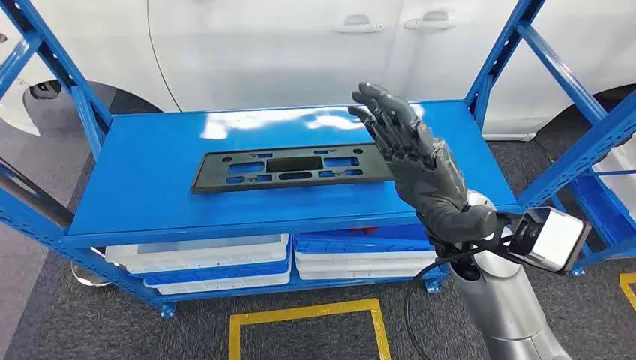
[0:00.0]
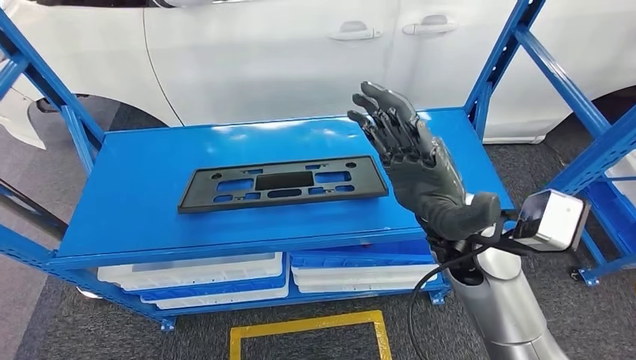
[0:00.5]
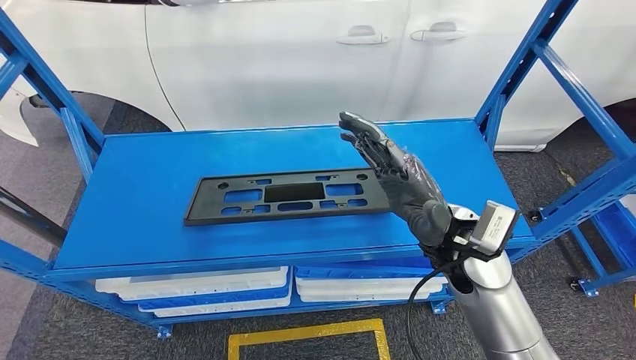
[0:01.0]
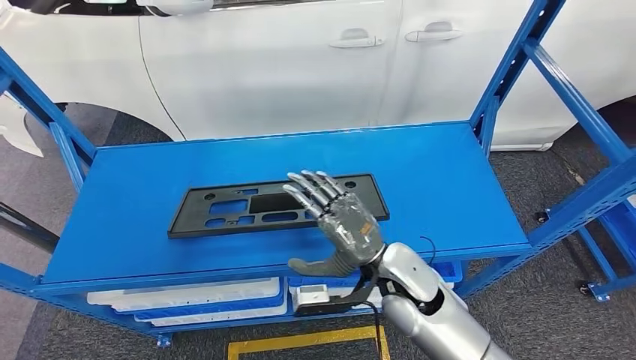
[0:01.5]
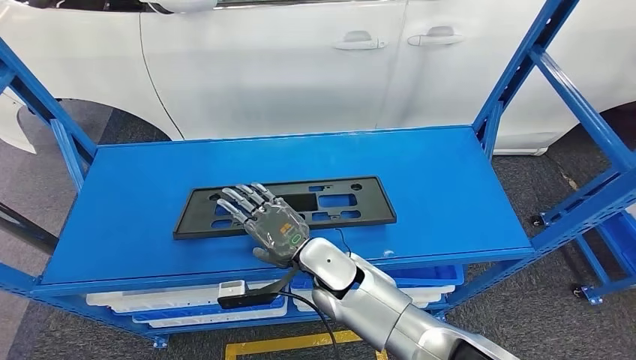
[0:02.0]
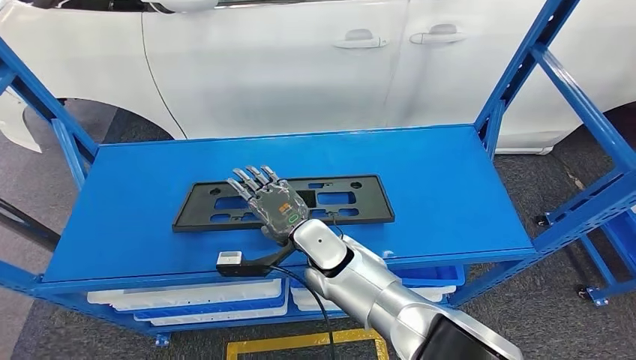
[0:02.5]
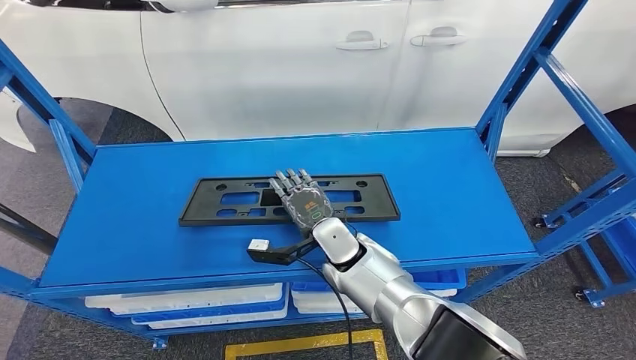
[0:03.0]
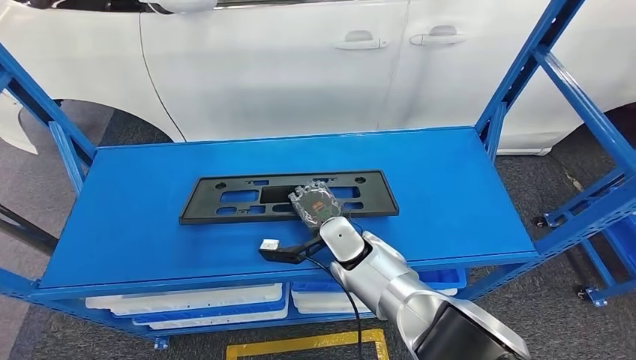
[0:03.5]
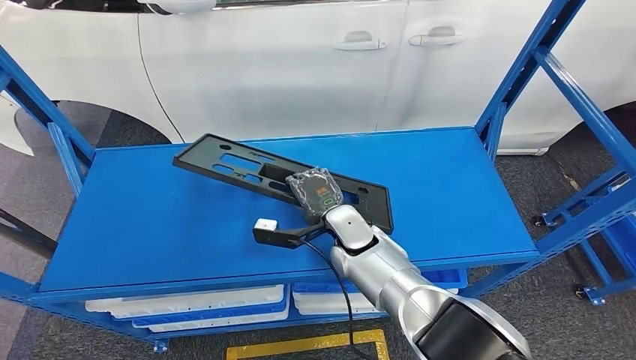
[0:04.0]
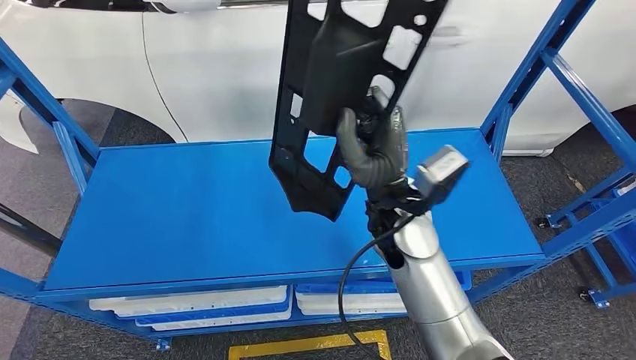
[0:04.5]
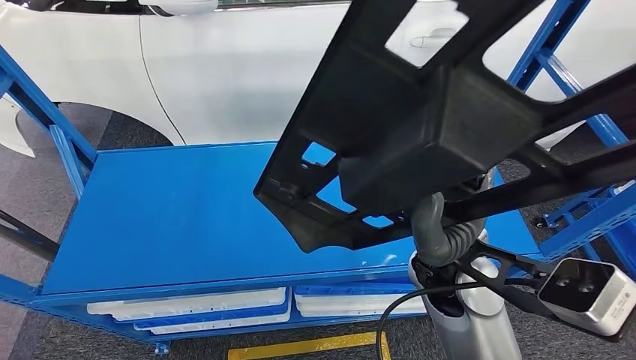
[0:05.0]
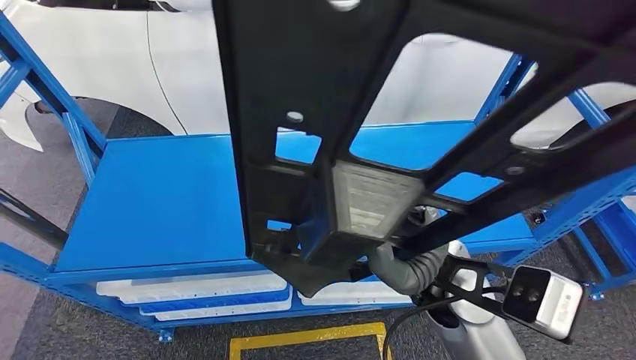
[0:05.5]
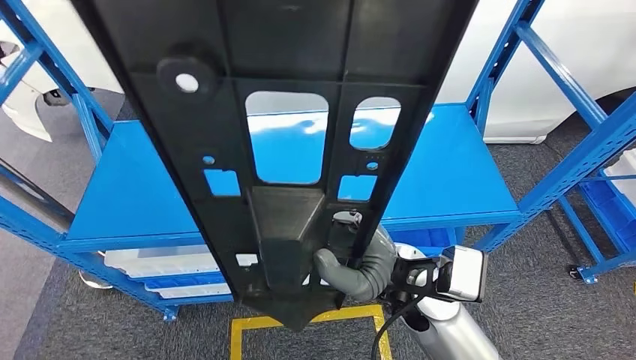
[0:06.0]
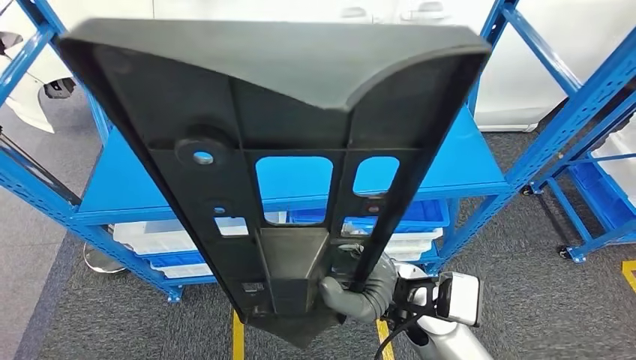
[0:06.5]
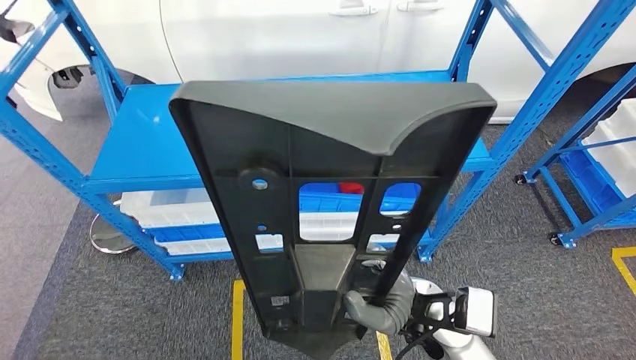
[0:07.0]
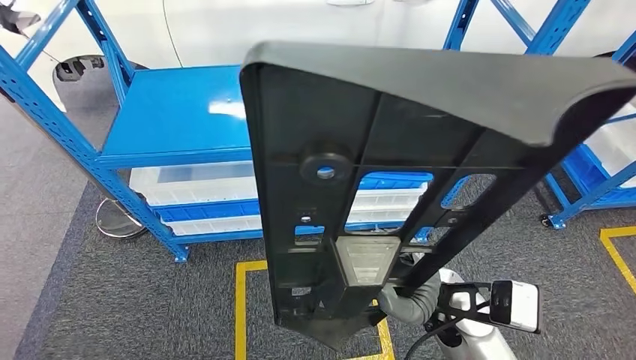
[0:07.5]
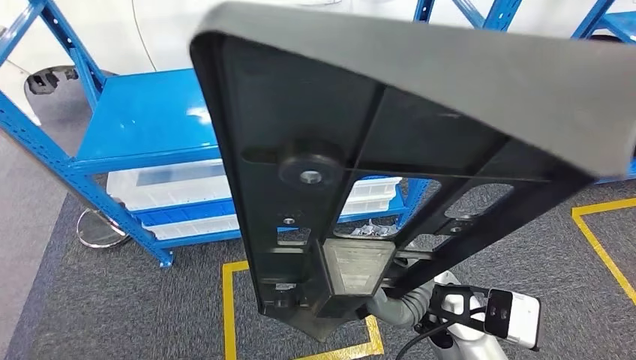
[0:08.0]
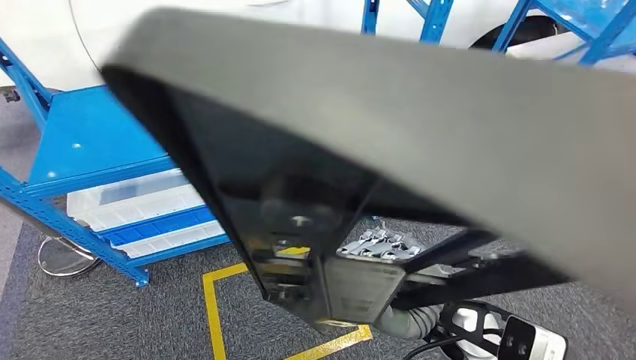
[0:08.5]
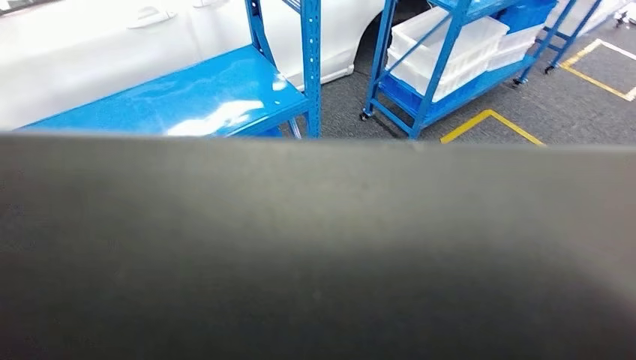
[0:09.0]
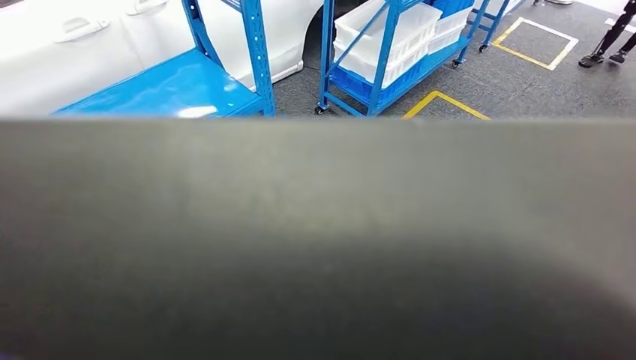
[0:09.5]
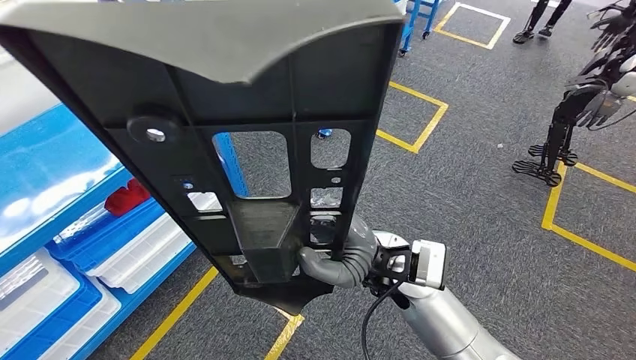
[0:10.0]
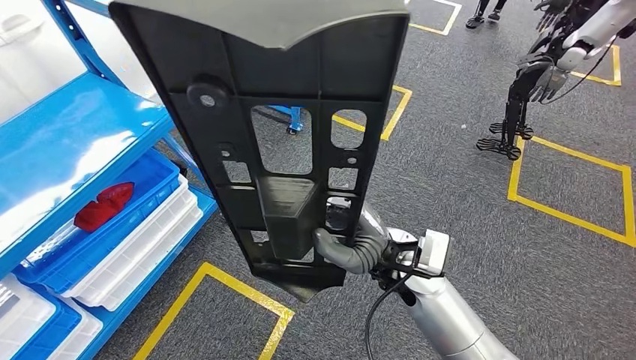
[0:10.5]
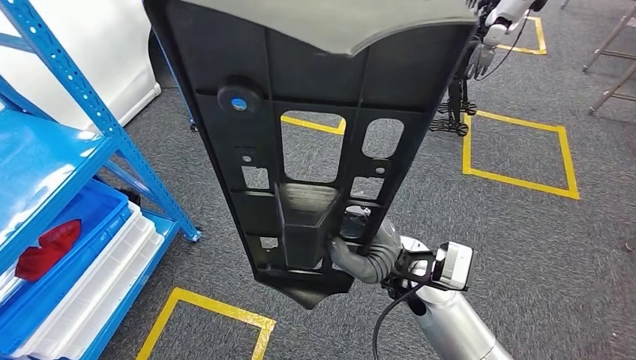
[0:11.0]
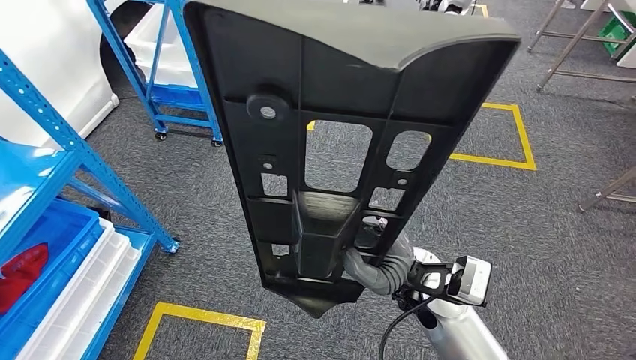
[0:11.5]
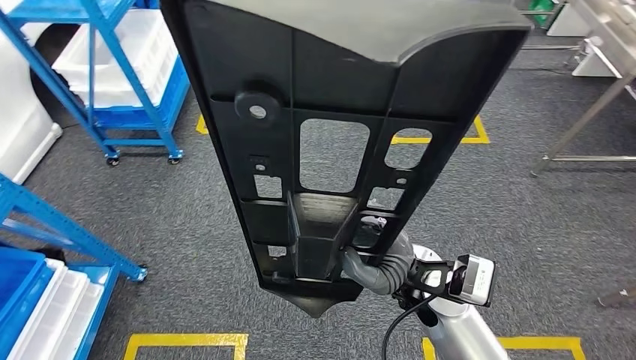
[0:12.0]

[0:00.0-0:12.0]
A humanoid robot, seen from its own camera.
Step, 0:00.0 to 0:05.5: Pick up the small component from the shelf.

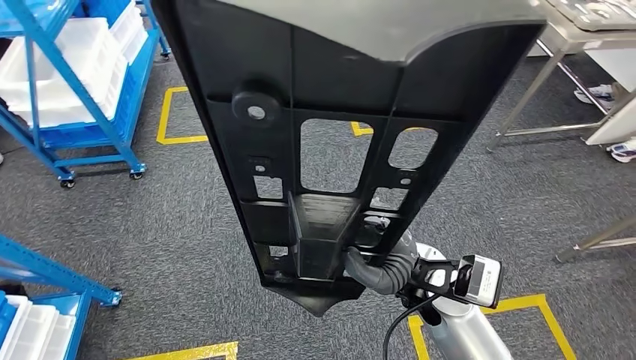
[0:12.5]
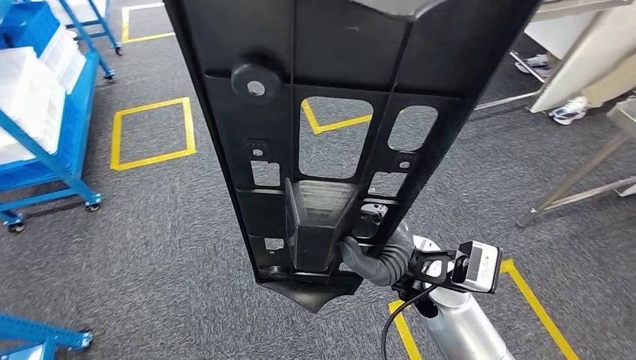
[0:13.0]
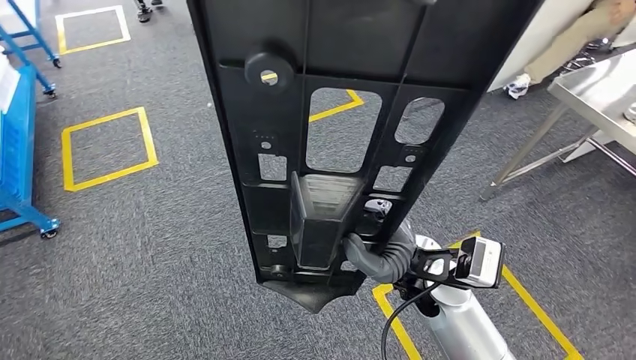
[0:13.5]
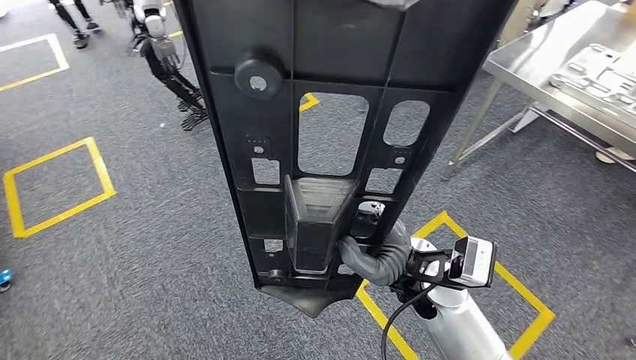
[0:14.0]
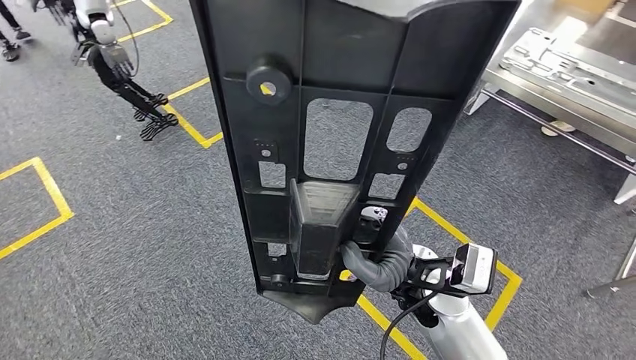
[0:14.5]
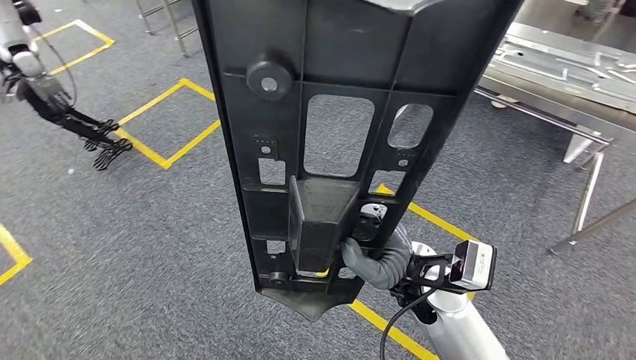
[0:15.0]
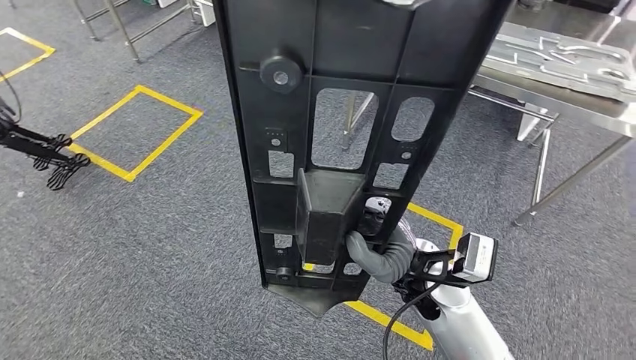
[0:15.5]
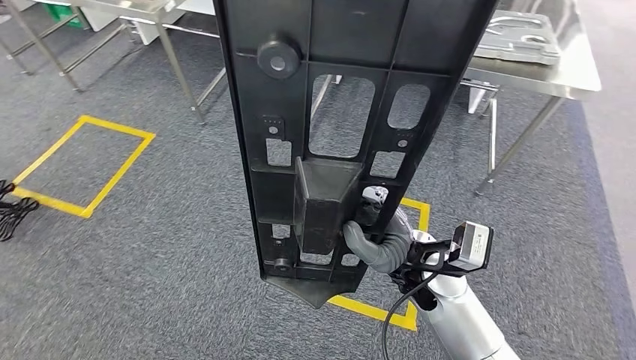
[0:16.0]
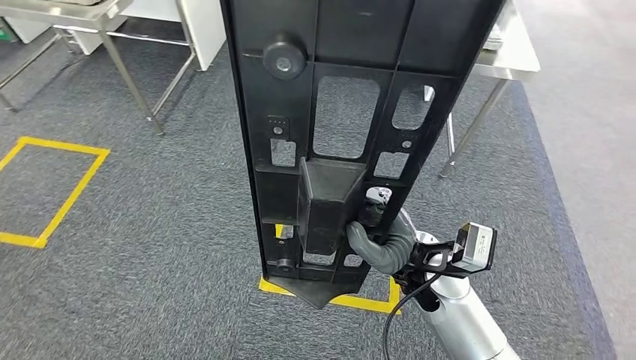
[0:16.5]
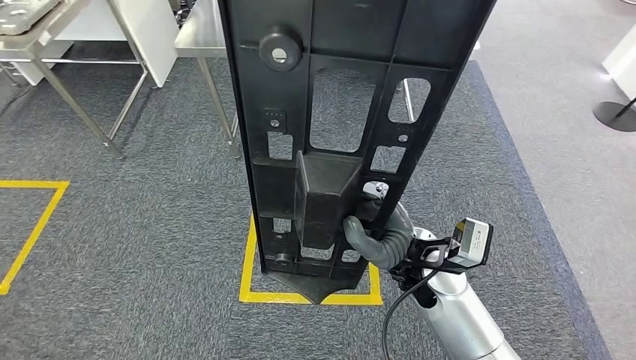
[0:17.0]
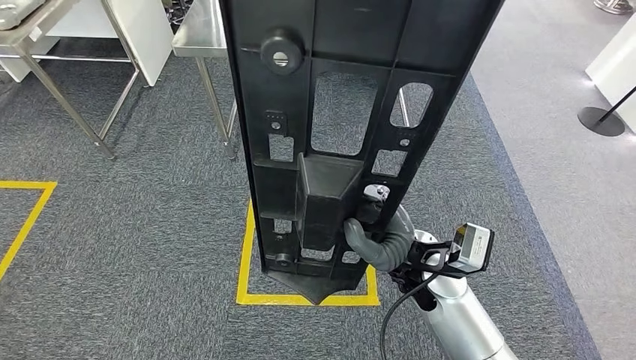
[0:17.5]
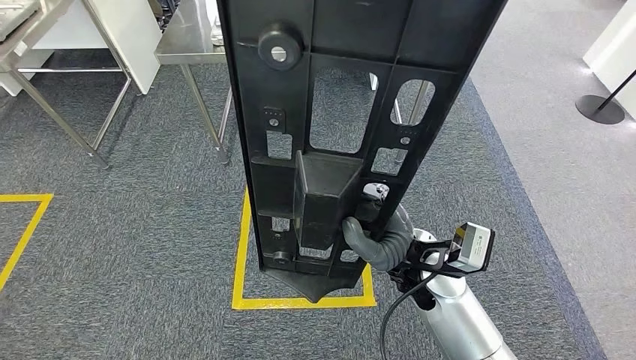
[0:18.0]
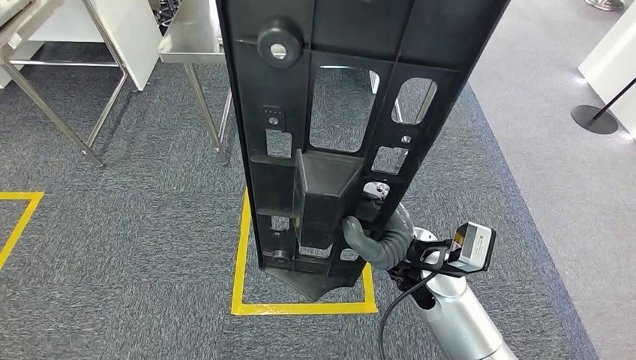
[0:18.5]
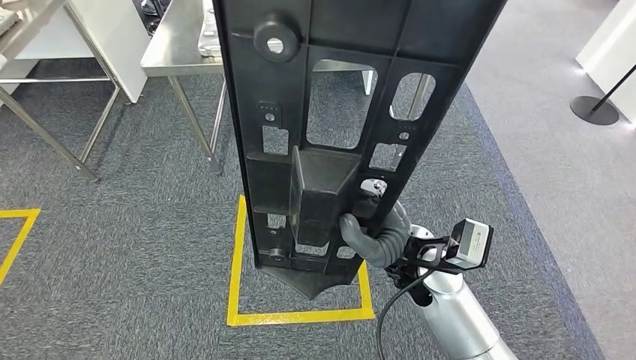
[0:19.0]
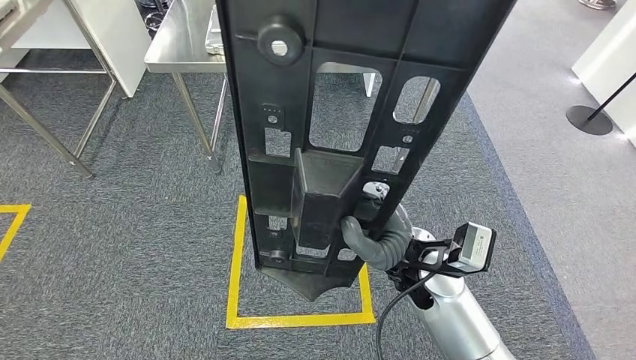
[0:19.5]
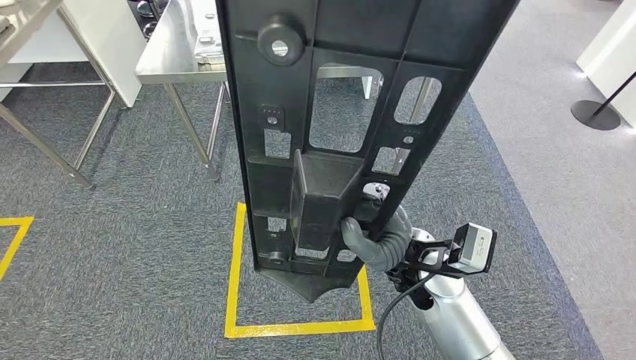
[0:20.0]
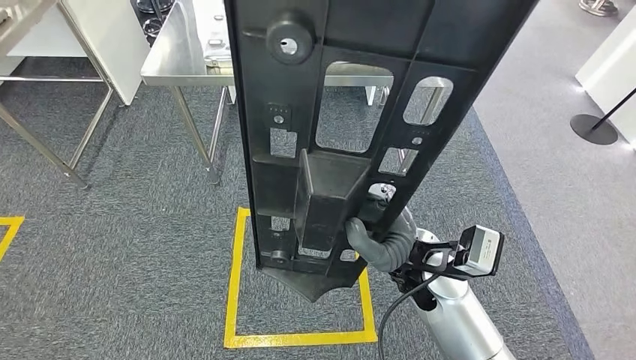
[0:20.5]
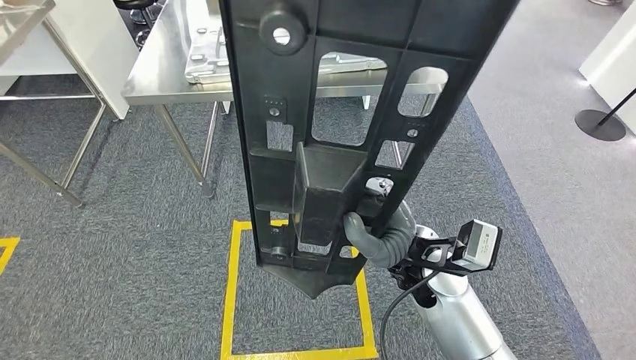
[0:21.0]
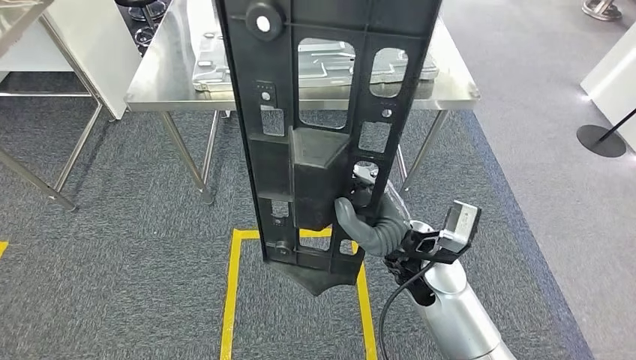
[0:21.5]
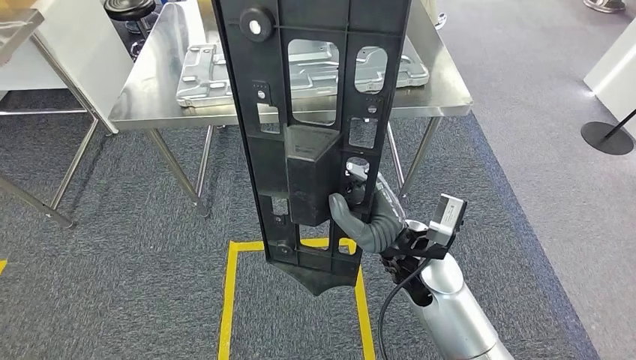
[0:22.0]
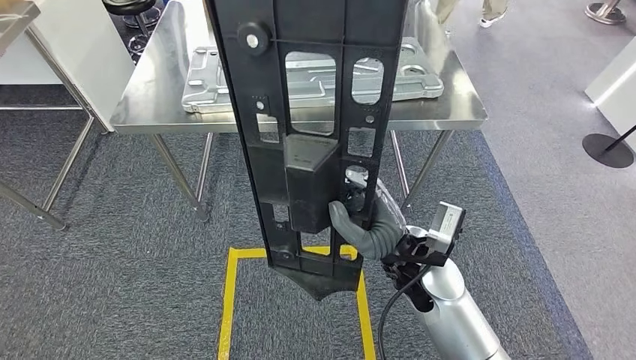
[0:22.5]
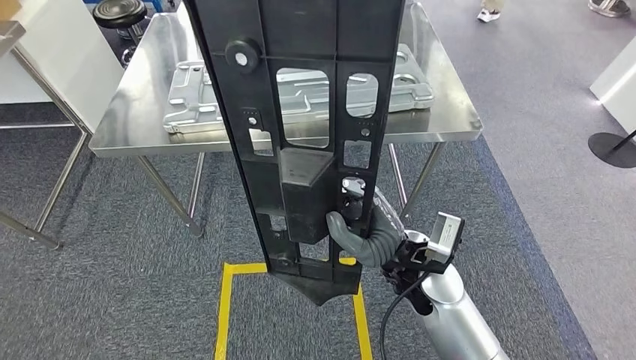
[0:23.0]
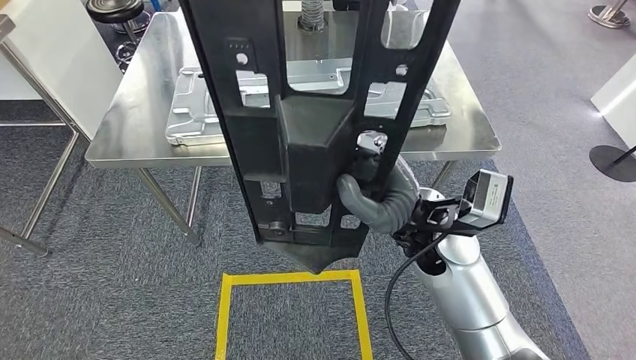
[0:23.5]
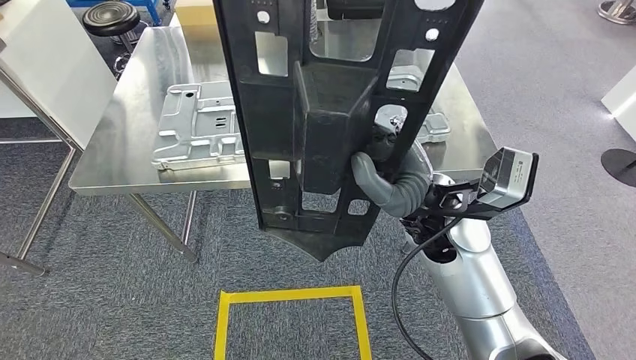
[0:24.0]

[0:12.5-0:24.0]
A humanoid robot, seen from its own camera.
Step, 0:12.5 to 0:24.0: Move the small component to the workbench.
0:18.5 to 0:20.0: Neither hand changes place.
